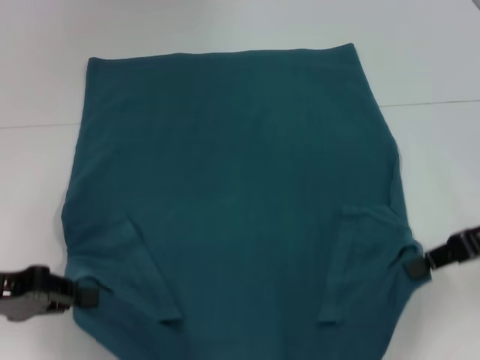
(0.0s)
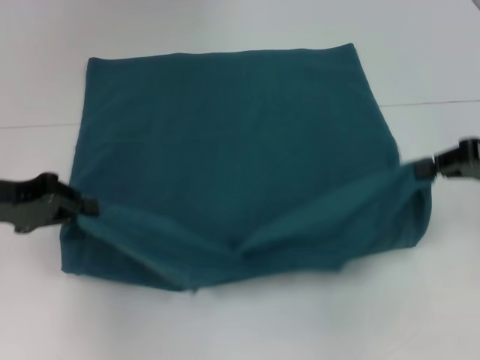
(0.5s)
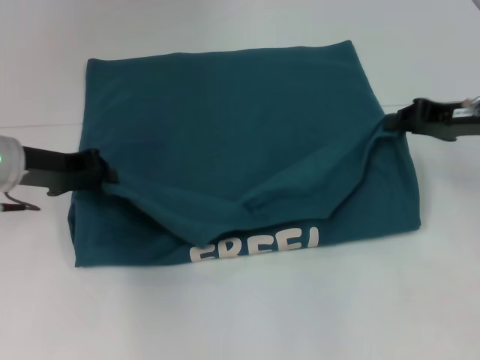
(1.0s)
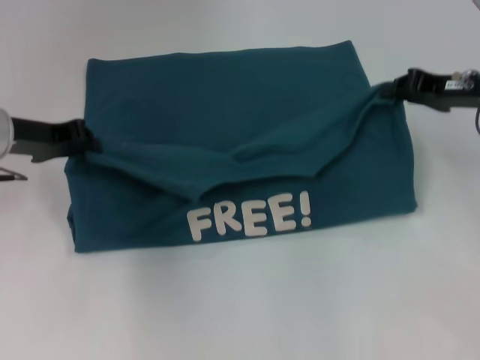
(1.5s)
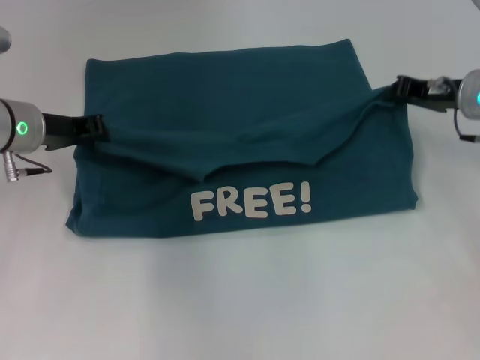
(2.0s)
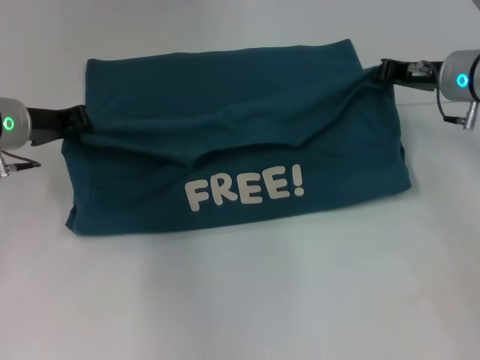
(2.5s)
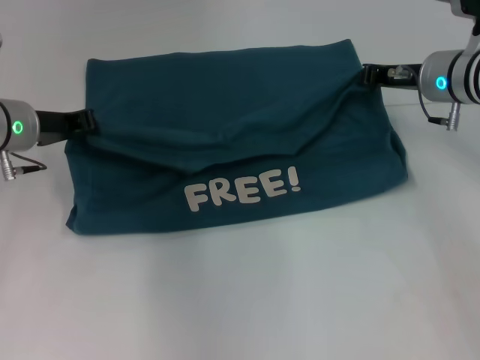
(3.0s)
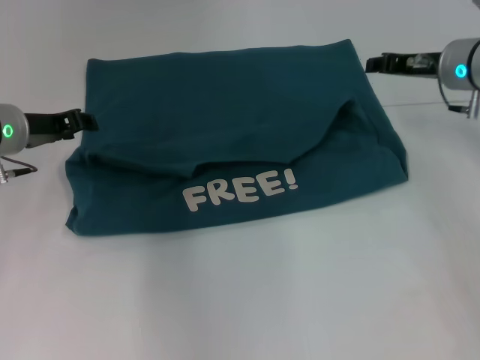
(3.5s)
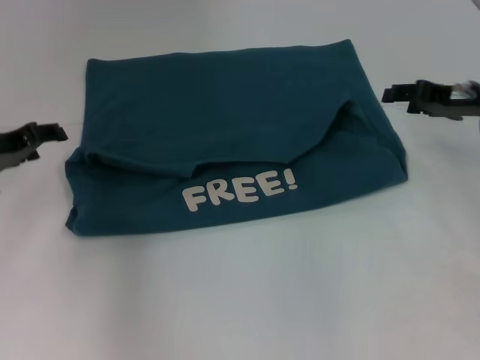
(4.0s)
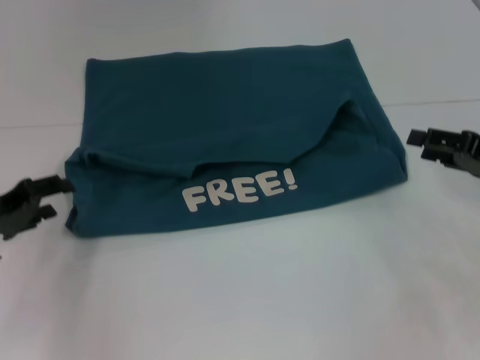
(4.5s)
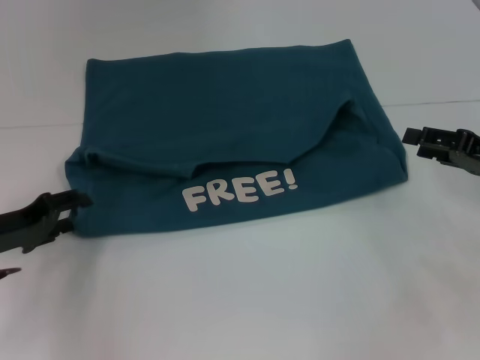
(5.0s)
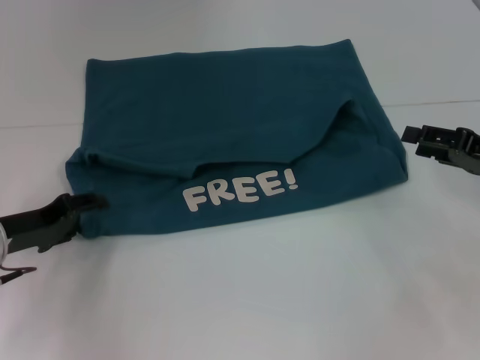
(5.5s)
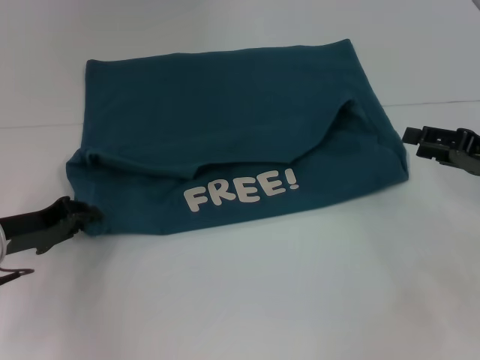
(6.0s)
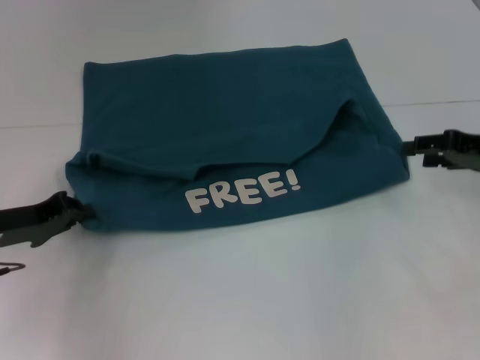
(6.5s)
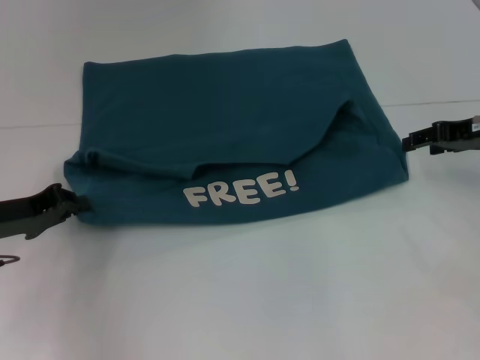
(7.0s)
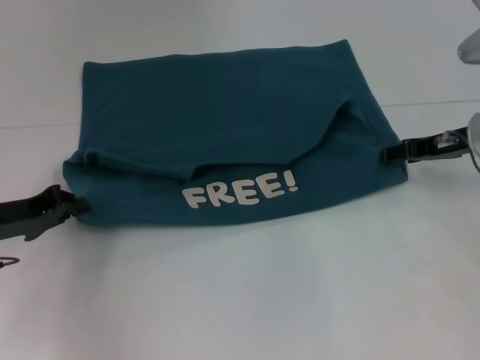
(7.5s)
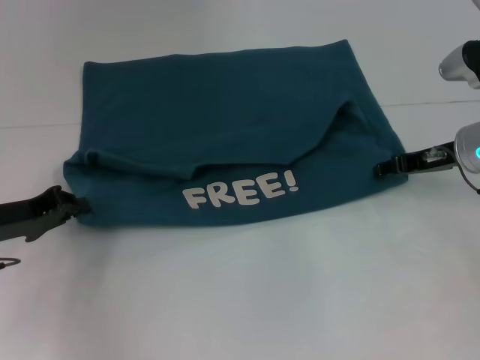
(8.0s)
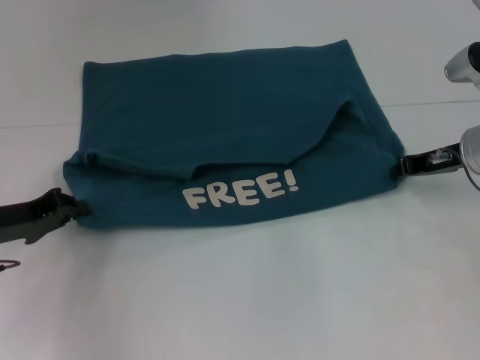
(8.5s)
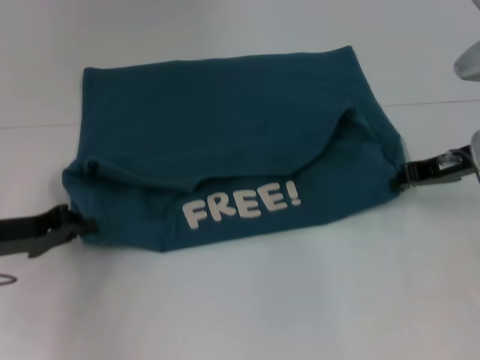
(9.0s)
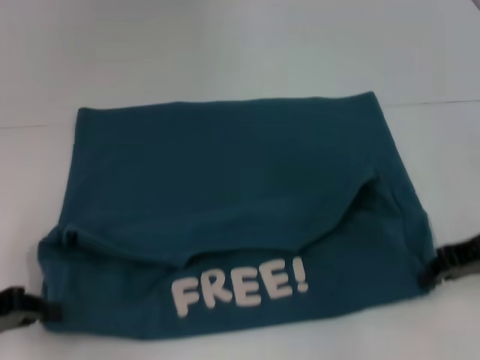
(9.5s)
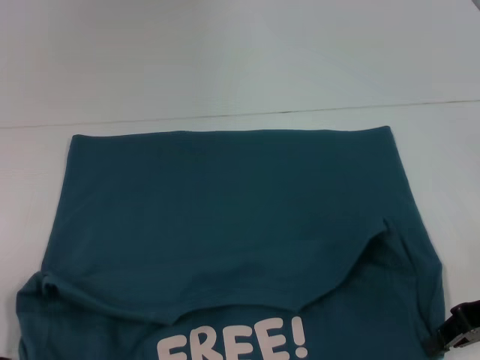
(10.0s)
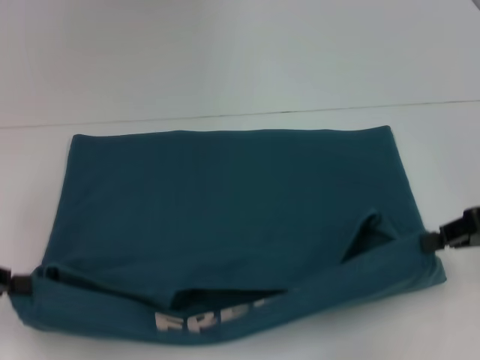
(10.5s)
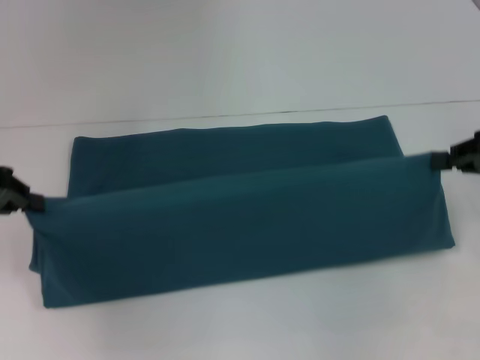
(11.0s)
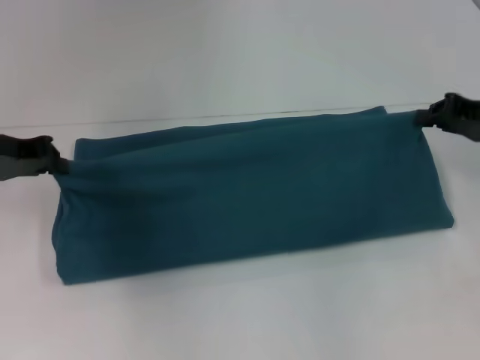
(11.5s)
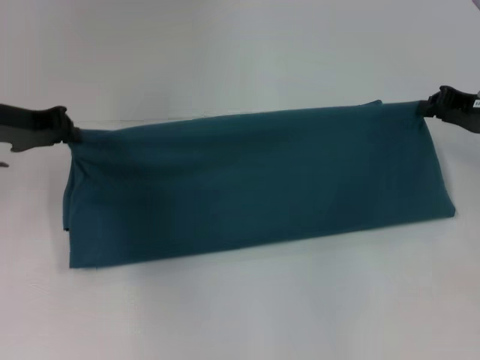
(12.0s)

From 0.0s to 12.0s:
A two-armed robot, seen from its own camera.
Step, from 0.0s to 3.0s: Fold the clothes to the left.
Step, from 0.0s to 3.0s: Fold the clothes to the right.
Step, from 3.5s to 9.5s: Pull the clothes with your left hand.
Step, from 3.5s to 9.5s: Pull the clothes with your right hand.
From 0.0s to 2.0s: The left gripper heads forward and to the right, covering some 15 cm. Meanwhile the right gripper goes some 15 cm forward.
From 2.0s to 4.0s: The right gripper opens up, while the left gripper is displaced to the left by some 5 cm, and opens its fingers.
From 4.0s to 6.0s: The right gripper shifts approximately 10 cm backward; the left gripper goes roughly 10 cm downward and backward.
From 6.0s to 8.0s: The left gripper closes. Meanwhile the right gripper travels forward and to the left by approximately 10 cm.
From 8.0s to 10.0s: The left gripper is displaced backward and to the left by approximately 15 cm. The right gripper moves backward, approximately 15 cm, and closes its fingers.
From 10.0s to 12.0s: The right gripper goes roughly 10 cm forward; the left gripper goes some 20 cm forward.

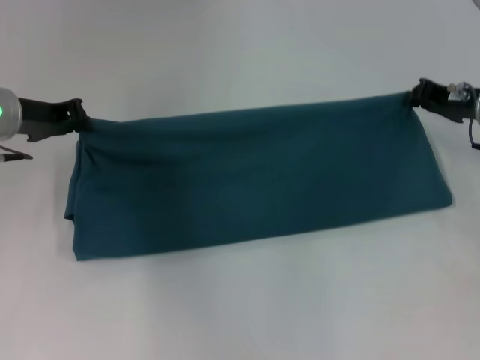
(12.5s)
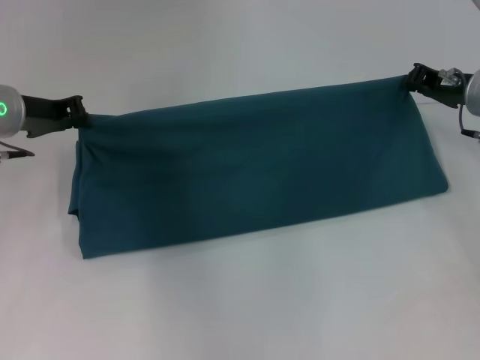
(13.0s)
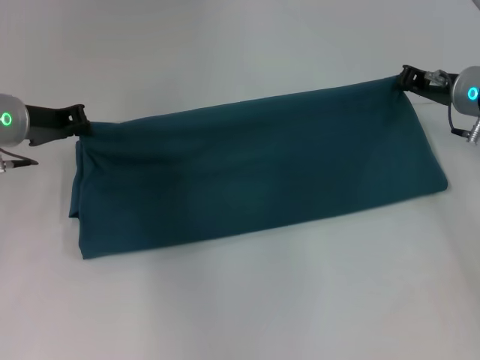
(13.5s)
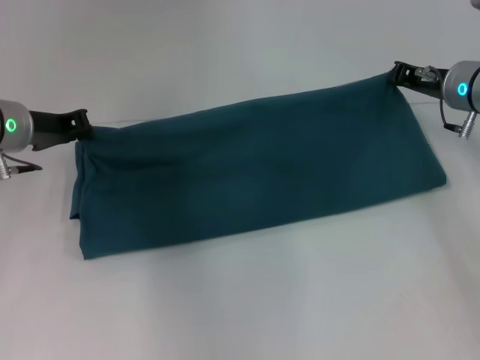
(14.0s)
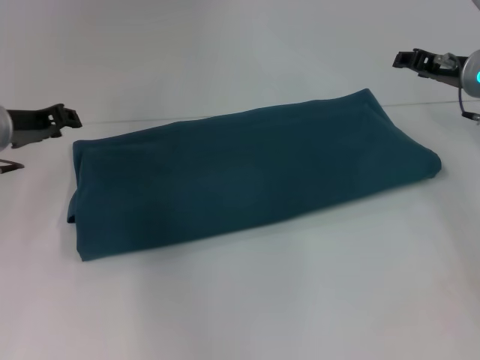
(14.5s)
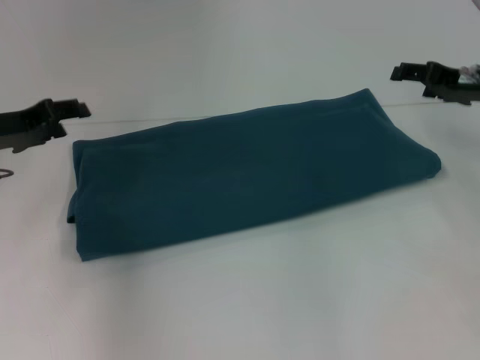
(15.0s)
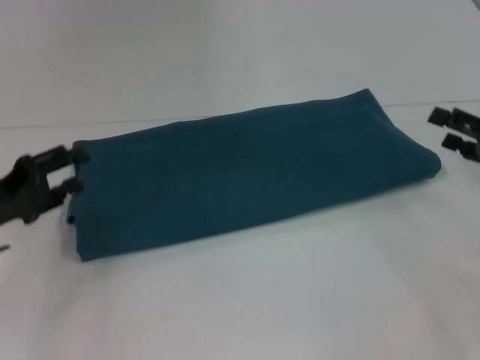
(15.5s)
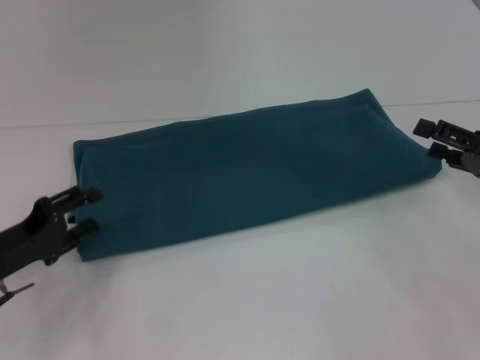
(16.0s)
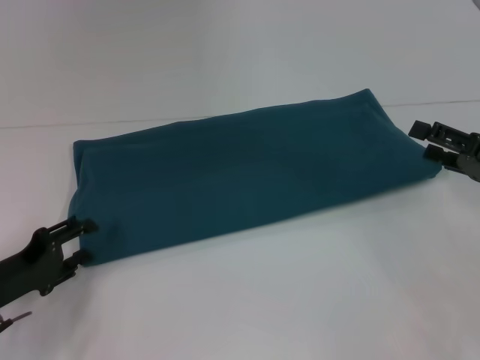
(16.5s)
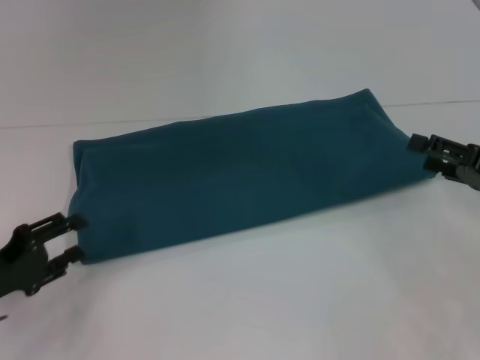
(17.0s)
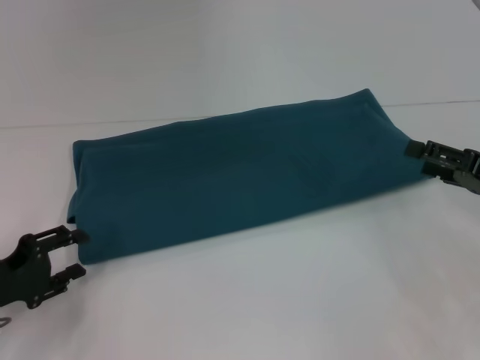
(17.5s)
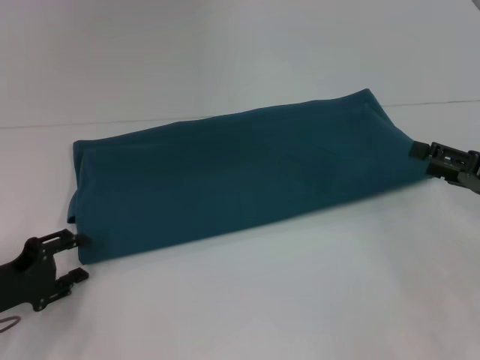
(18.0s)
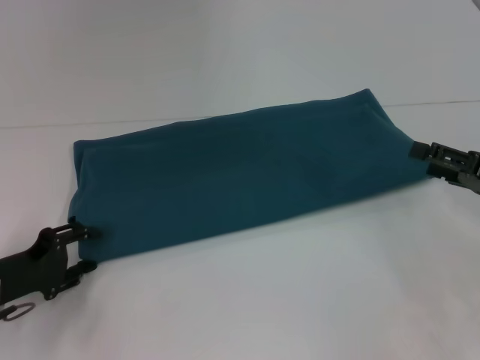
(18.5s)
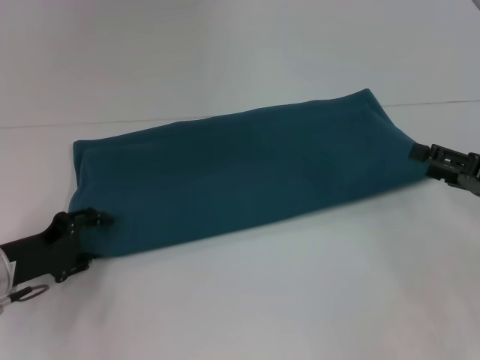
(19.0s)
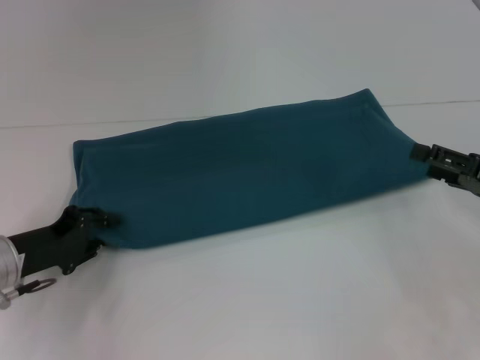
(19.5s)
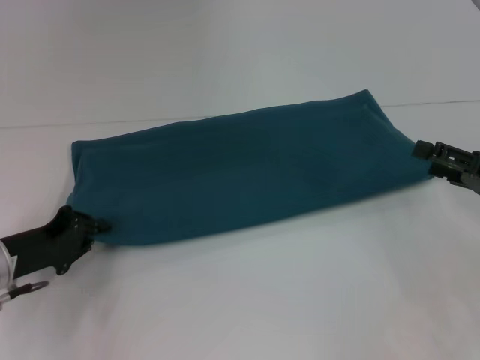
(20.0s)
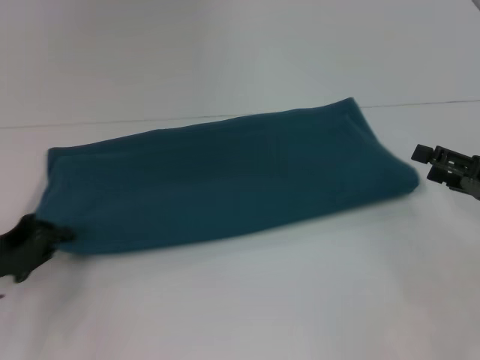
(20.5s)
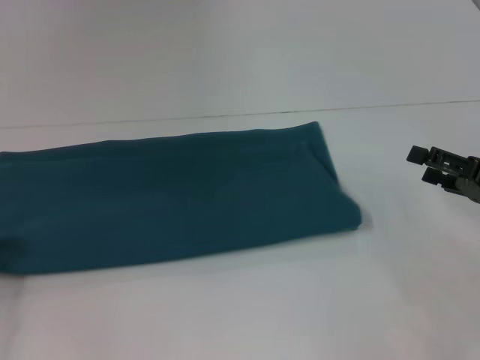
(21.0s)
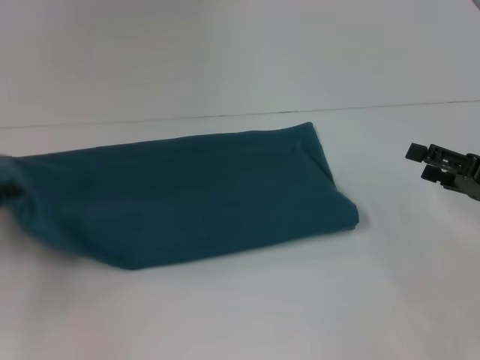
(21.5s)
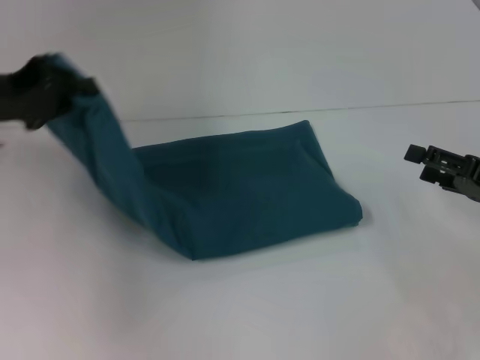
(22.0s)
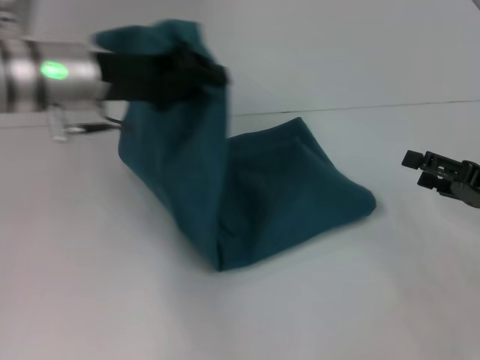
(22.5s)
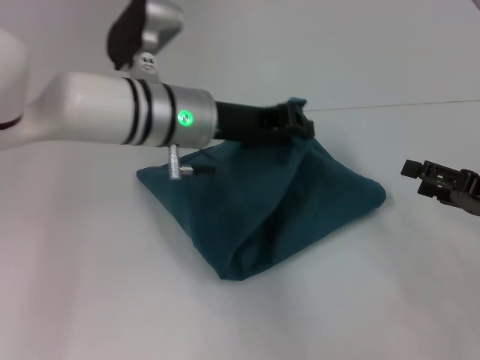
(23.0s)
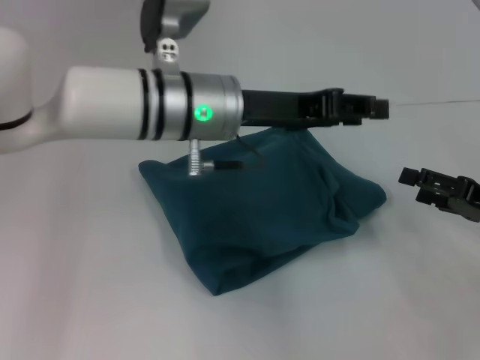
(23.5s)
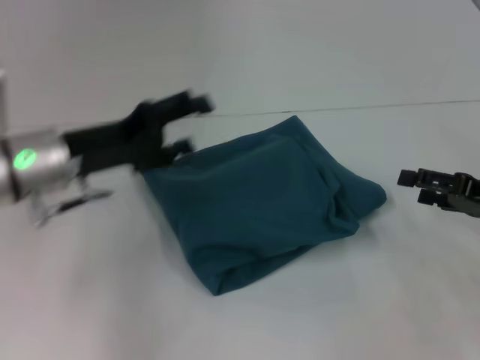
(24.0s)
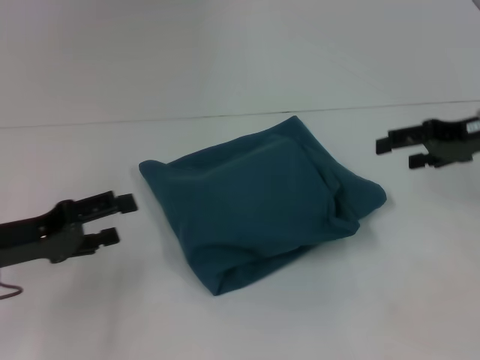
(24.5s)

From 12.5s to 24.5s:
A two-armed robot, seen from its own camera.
Step, from 12.5s to 23.0s: Fold the clothes to the left.
From 12.5s to 14.5s: The right gripper opens its fingers.
From 14.5s to 16.5s: The right gripper travels backward by some 15 cm, and opens its fingers. The left gripper is displaced backward and downward by about 20 cm, and opens its fingers.
From 16.5s to 18.5s: The grippers stay close to where they were, moving slightly.
From 18.5s to 20.5s: The left gripper closes its fingers.
From 20.5s to 22.5s: The left gripper shifts approximately 25 cm to the right, upward and forward.
From 22.5s to 24.5s: The right gripper shifts about 15 cm forward and upward. The left gripper moves to the left, downward and backward, some 20 cm, and opens.

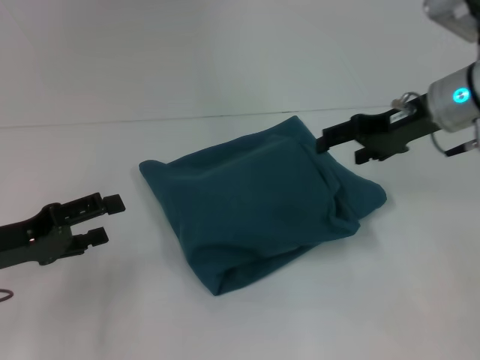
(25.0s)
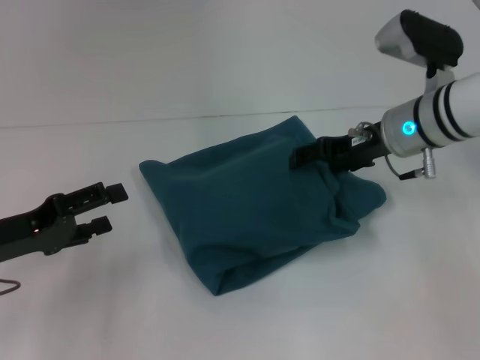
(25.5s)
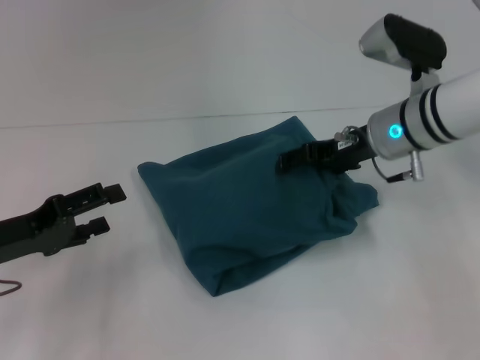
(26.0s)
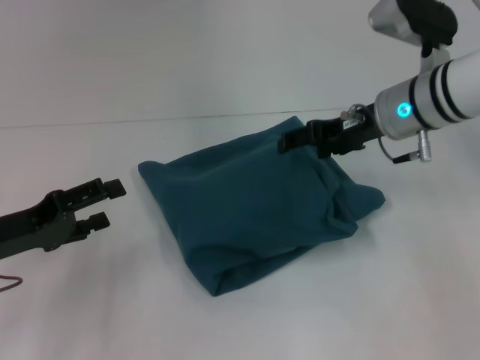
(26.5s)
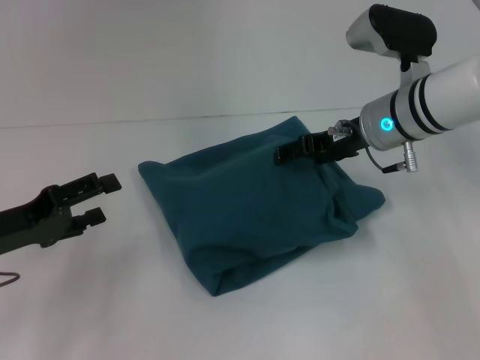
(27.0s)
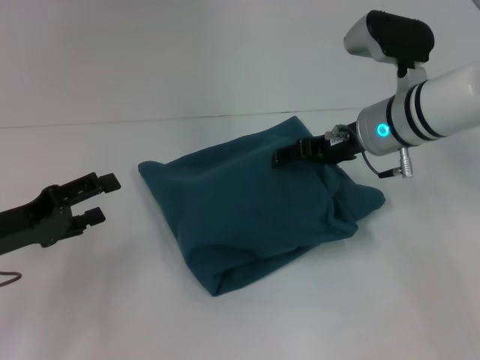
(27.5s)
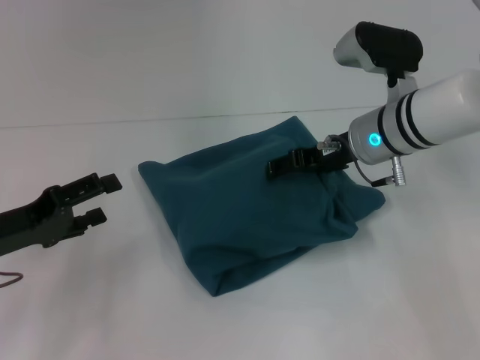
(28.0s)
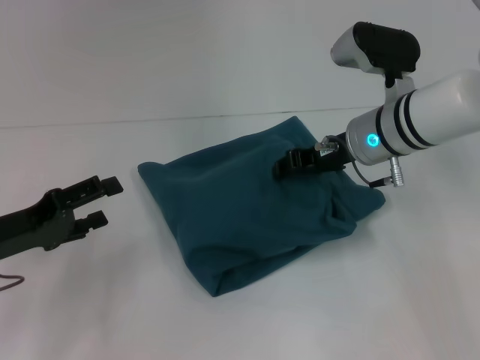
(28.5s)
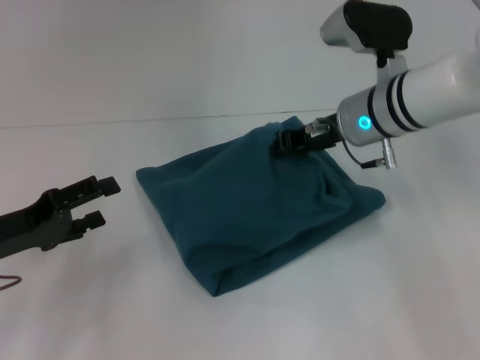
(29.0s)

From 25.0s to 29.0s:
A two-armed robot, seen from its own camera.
From 25.0s to 27.0s: The right gripper goes some 5 cm to the left.
From 27.0s to 29.0s: The right gripper closes up.
